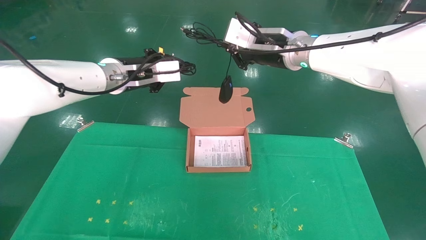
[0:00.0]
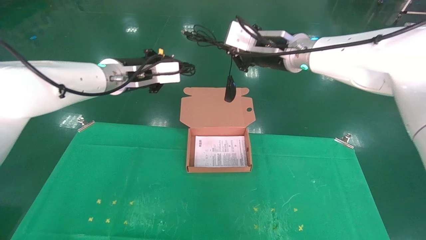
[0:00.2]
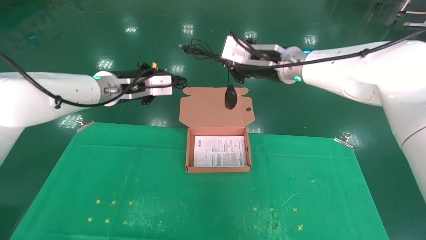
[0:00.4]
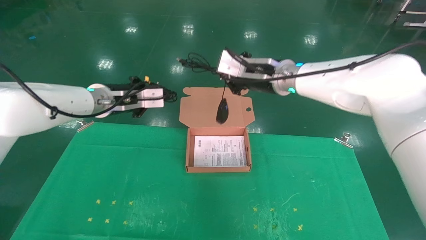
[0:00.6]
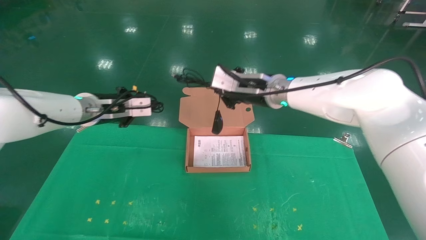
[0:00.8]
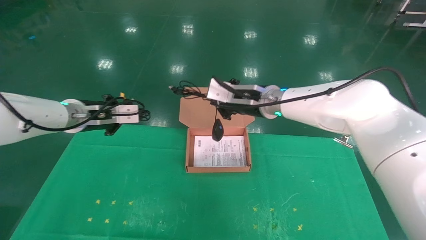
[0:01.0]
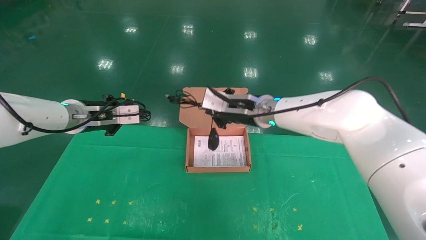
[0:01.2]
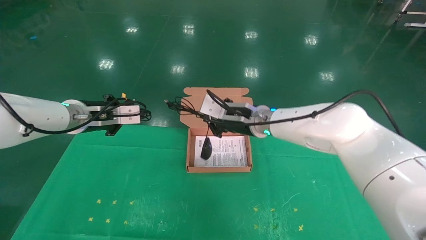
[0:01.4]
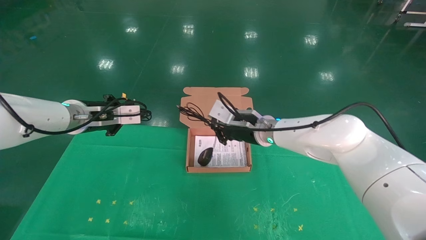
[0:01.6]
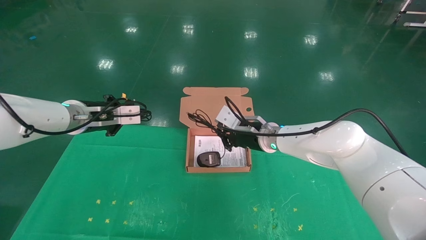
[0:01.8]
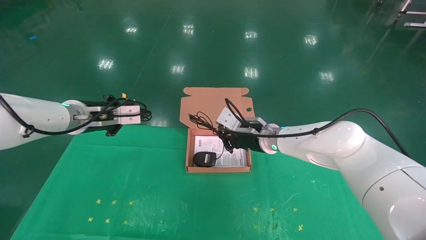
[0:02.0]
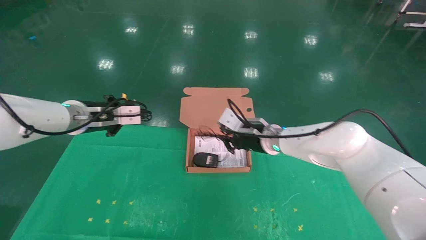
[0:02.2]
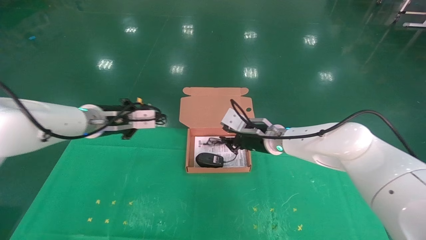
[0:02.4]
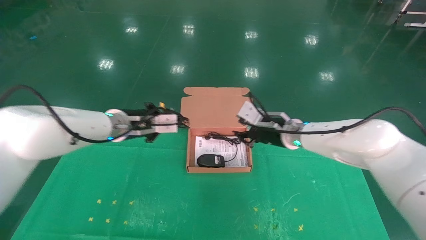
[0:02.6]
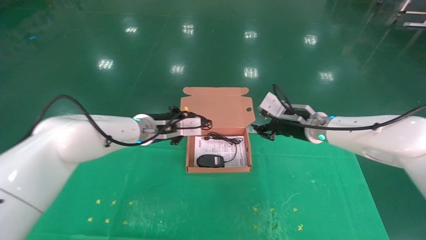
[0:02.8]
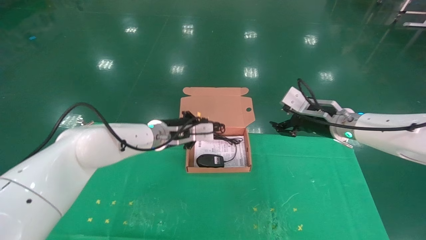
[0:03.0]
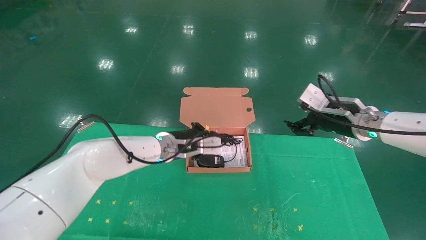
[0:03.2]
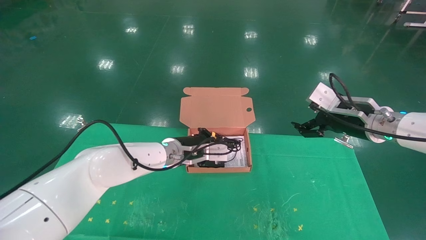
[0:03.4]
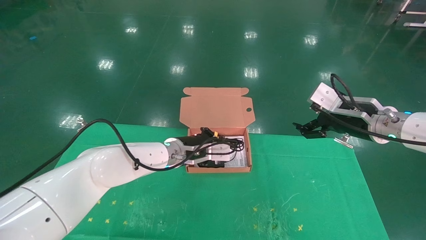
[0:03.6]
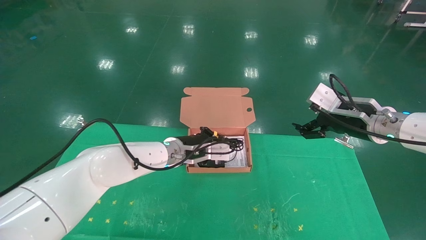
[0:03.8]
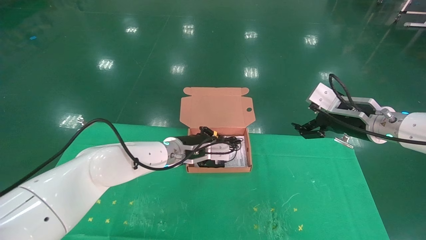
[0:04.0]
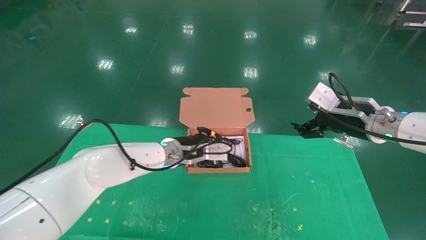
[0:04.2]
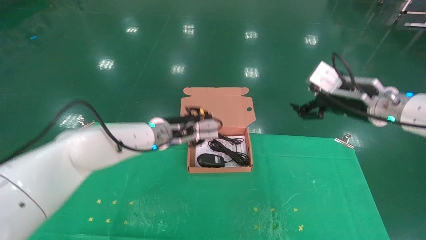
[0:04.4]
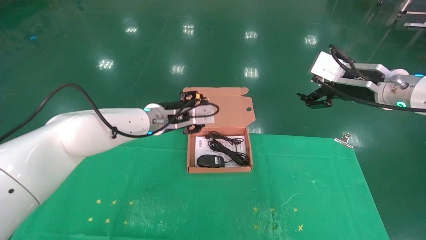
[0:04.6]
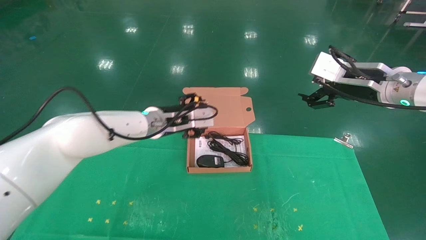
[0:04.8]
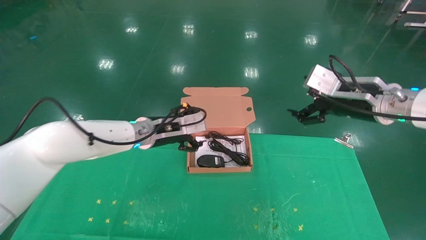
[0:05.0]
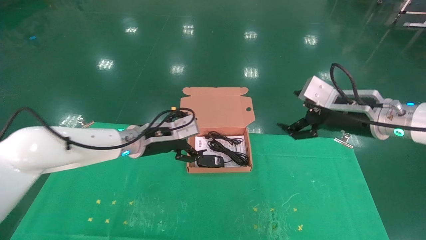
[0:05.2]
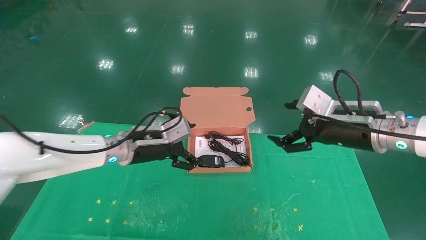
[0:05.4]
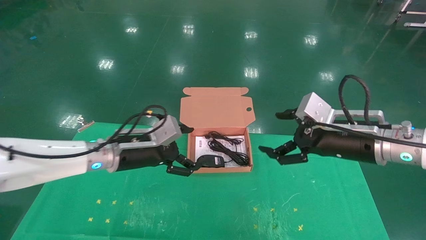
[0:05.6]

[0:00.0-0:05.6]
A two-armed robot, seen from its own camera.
Task of the whole recording: grasp data cable left put into box grasp mouse right put into box.
Step, 0:00.0 to 0:03.8: Place the mouse and power cord into the box.
0:00.0 to 0:01.4: The left gripper goes some 10 cm to the left and downward. Meanwhile the right gripper is displaced downward by approximately 15 cm.
0:01.4 to 0:02.8: The grippers both shift to the right by approximately 15 cm. The right gripper opens its fingers.
0:02.8 to 0:04.2: The right gripper travels backward and to the right by about 10 cm, and opens; the left gripper moves about 5 cm.
0:04.2 to 0:05.6: The left gripper goes roughly 15 cm to the left and backward, and opens its fingers. The right gripper travels backward by some 5 cm.
